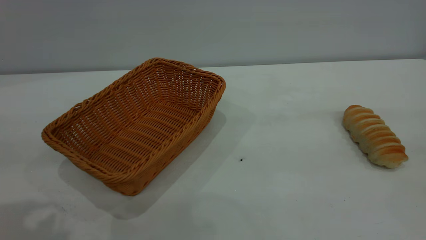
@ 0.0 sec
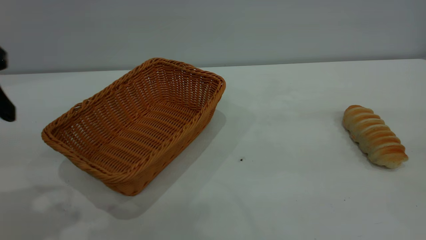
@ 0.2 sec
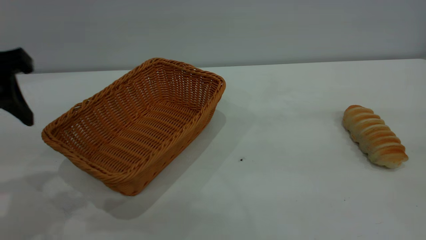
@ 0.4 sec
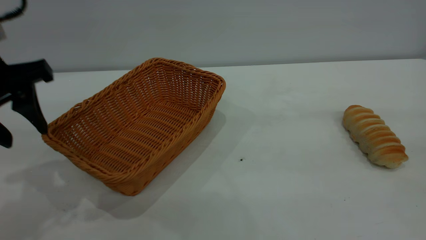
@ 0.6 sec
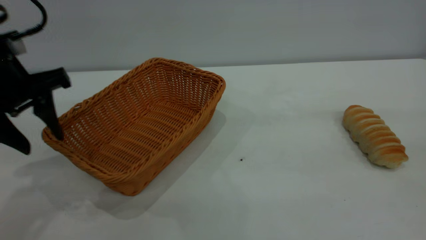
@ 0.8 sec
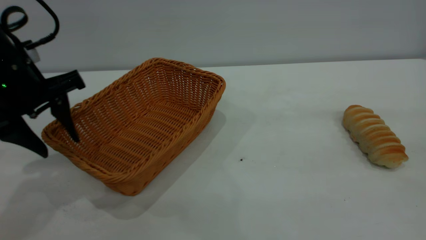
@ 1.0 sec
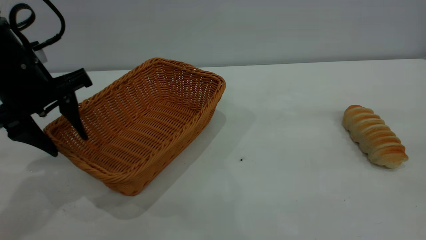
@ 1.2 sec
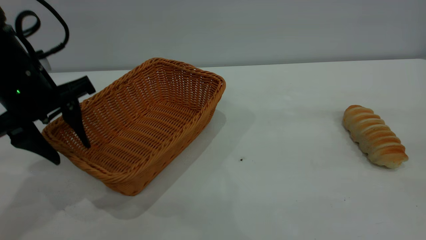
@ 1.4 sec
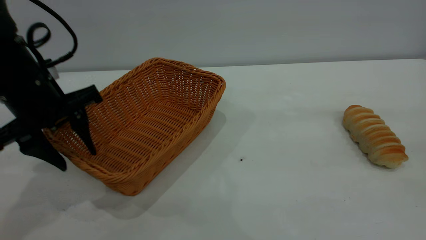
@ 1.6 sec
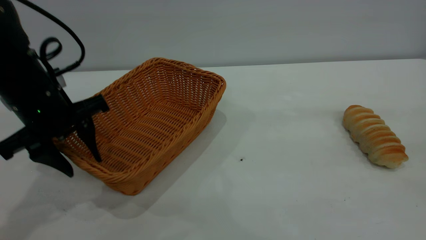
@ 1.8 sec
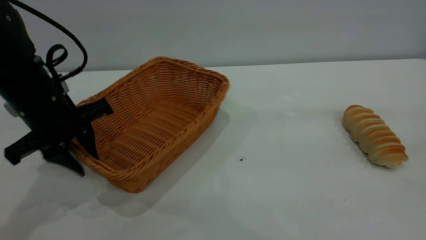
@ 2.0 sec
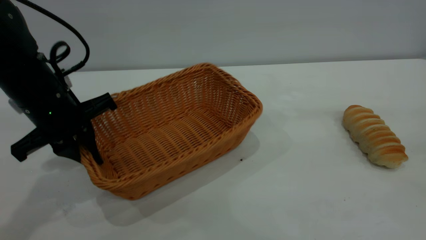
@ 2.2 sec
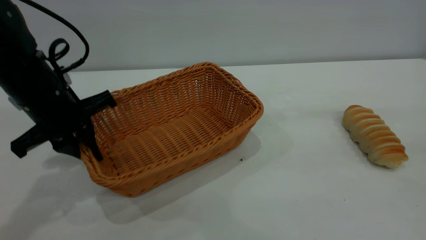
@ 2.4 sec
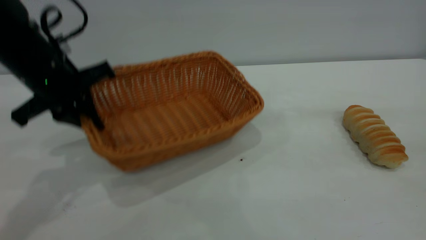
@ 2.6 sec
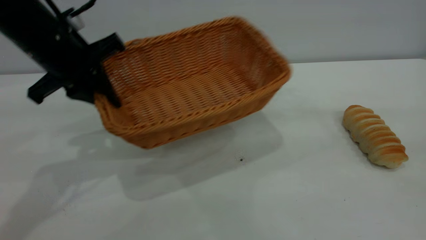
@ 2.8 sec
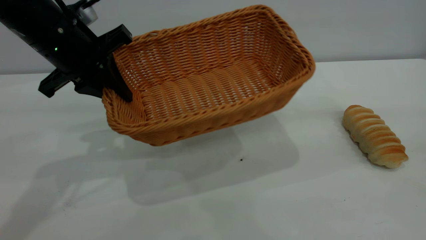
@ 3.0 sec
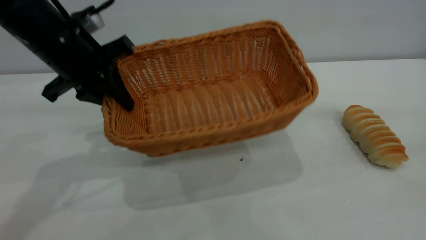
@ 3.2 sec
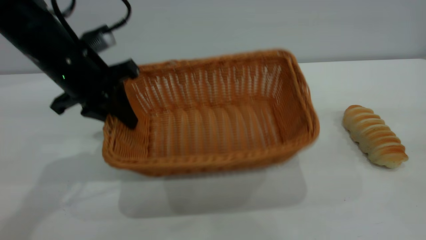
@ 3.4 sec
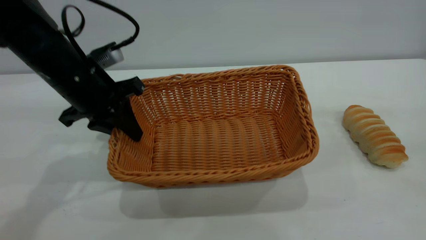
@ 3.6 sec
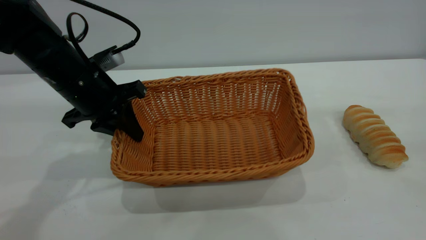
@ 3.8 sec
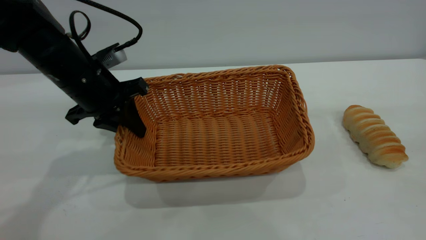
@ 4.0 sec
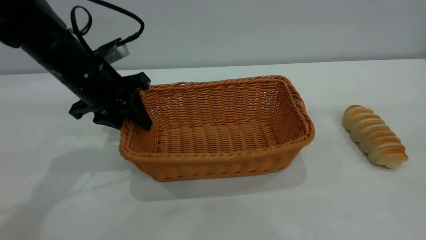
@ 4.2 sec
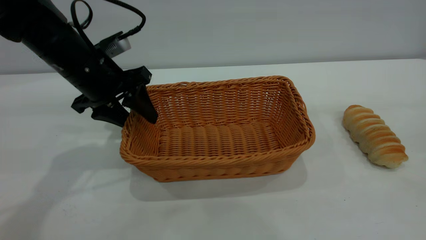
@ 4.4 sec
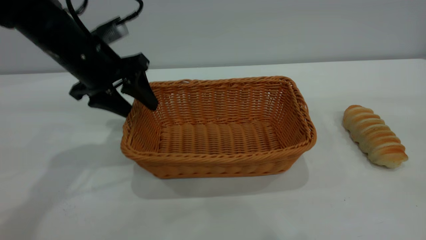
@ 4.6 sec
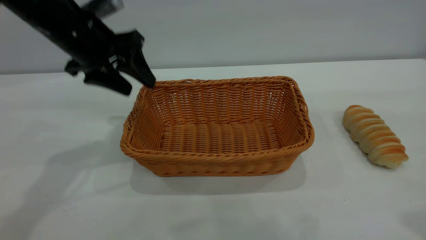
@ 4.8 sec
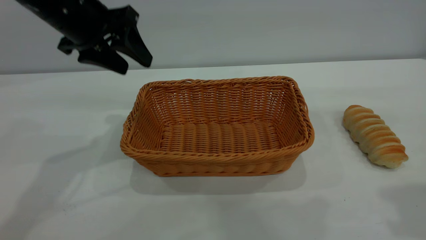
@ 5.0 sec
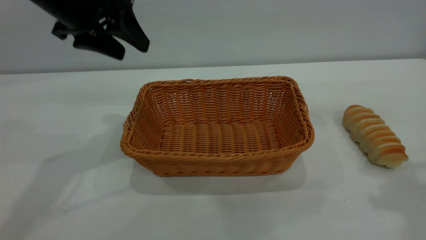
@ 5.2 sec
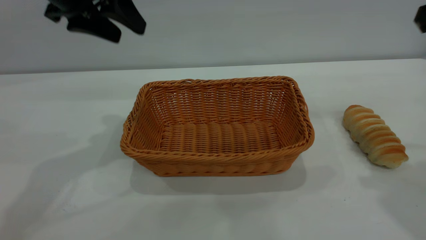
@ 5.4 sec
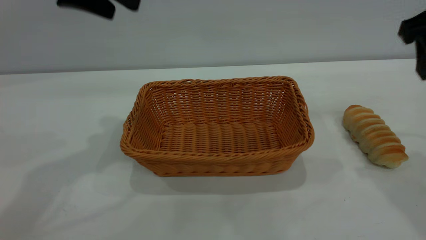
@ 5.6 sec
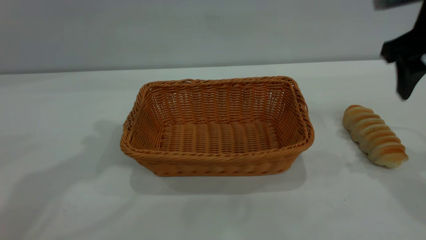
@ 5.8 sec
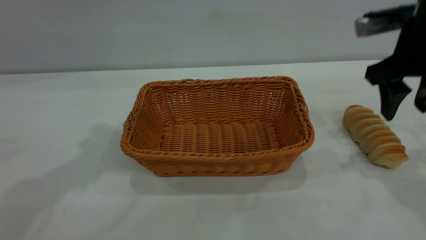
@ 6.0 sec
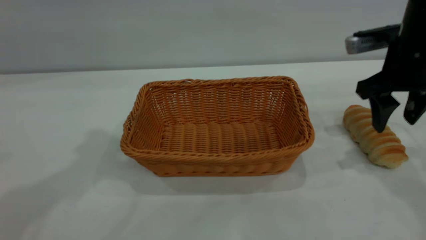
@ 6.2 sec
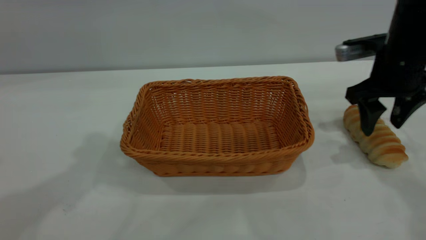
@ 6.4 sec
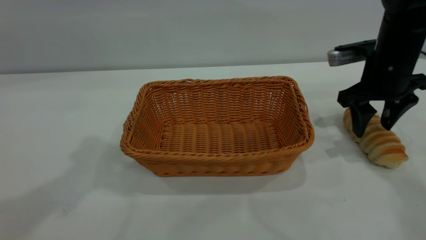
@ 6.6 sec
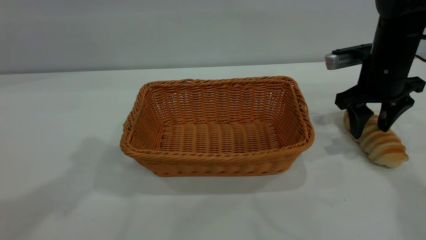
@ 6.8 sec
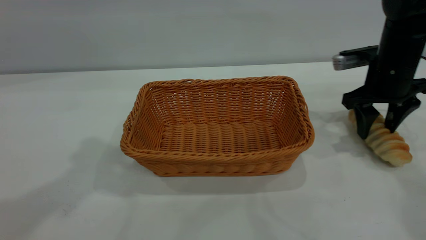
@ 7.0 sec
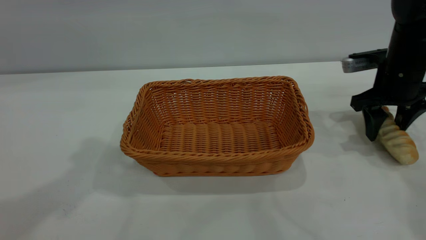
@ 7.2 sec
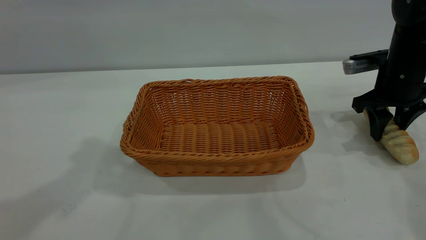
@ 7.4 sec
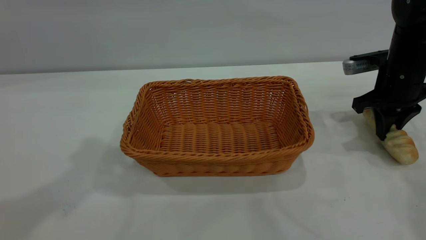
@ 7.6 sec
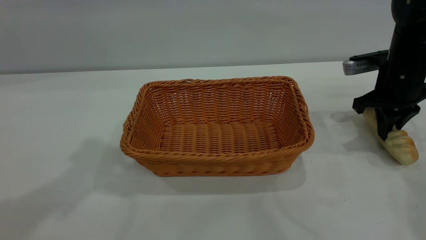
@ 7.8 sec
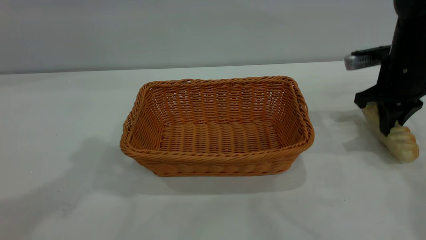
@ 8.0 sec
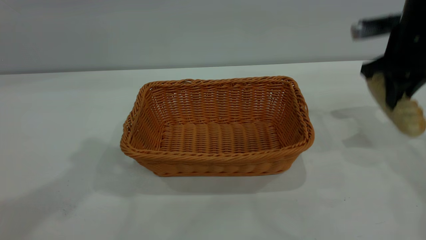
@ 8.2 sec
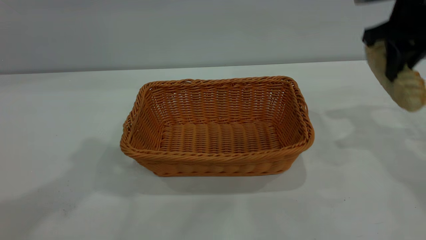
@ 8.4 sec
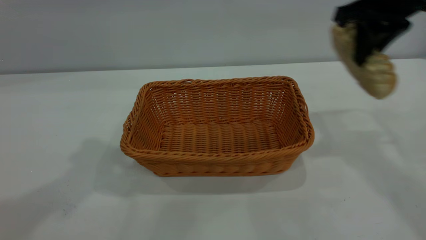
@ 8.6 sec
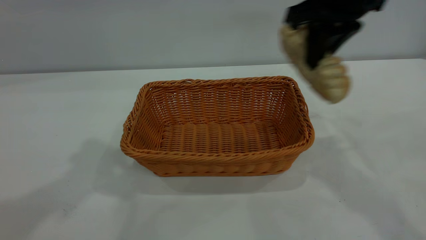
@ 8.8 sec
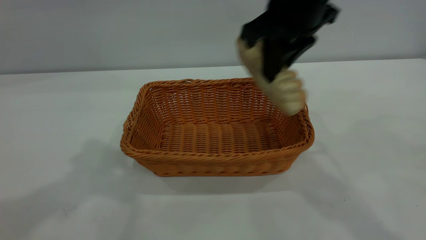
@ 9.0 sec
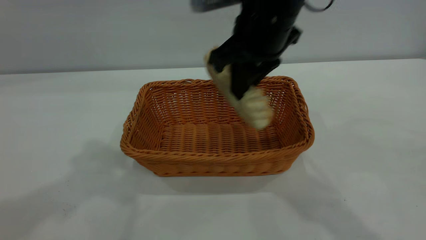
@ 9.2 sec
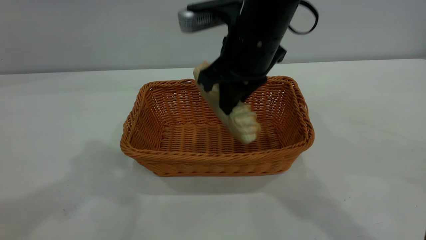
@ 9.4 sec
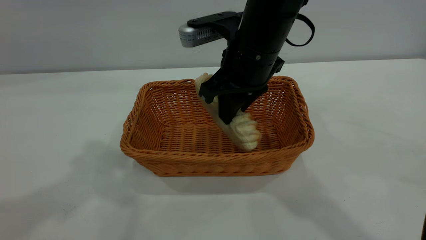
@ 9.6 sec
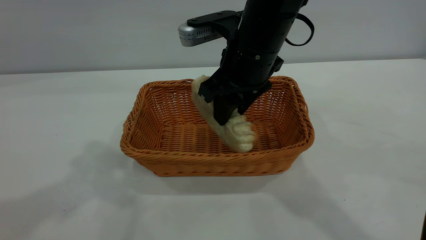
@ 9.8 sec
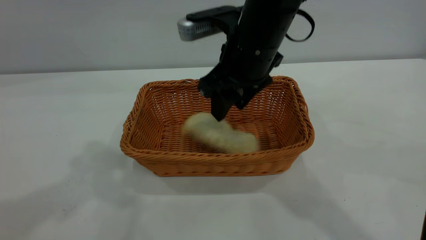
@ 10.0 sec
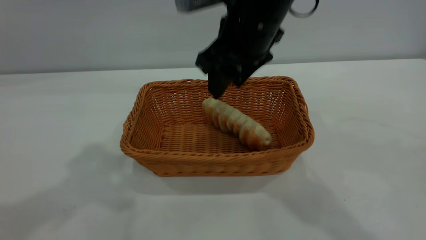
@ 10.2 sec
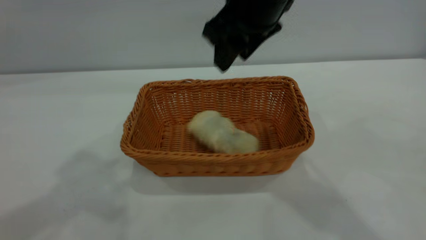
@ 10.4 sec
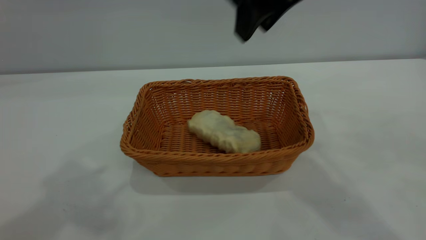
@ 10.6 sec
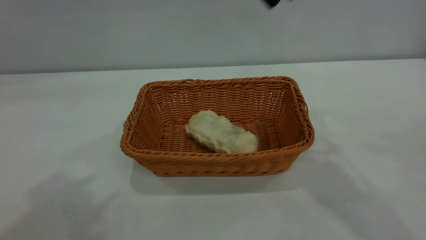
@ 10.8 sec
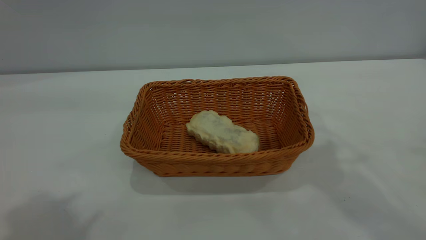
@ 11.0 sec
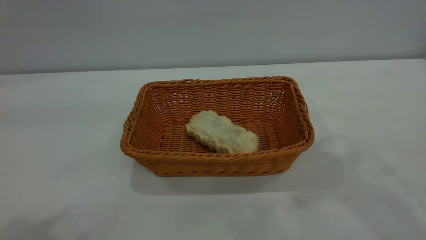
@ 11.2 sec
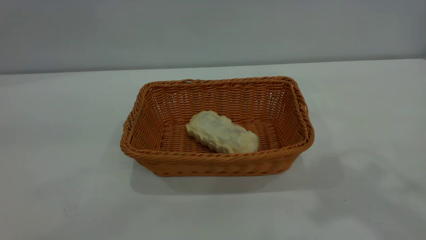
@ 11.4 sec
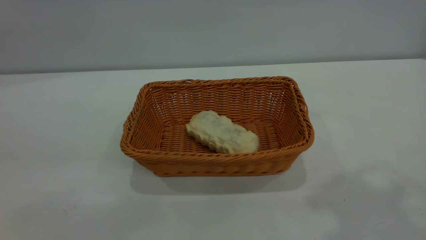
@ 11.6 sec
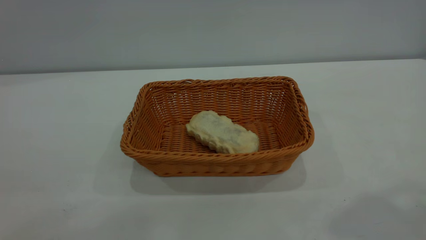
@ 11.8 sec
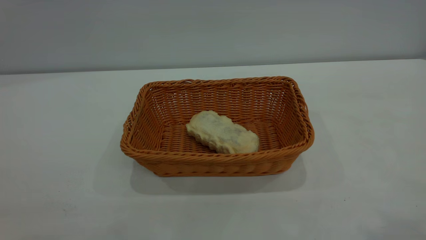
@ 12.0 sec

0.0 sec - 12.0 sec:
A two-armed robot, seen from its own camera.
Task of the whole recording: One hand grasps the yellow basket and places it in the middle of the table, while the other hand picks up the long bread and puts it into the yellow basket.
Step, 0.0 sec - 5.0 sec: Move the basket to the center of view.
Step, 8.6 sec - 10.4 sec: place the bread into the basket.
0.0 sec - 1.6 sec: The left gripper is displaced forward and downward by roughly 15 cm.
1.6 sec - 3.0 sec: The left gripper changes place by some 5 cm, and closes up.
3.0 sec - 4.4 sec: The left gripper shifts about 5 cm downward, and opens.
4.4 sec - 6.0 sec: The right gripper is displaced forward and downward by approximately 30 cm; the left gripper is displaced upward by some 25 cm.
6.0 sec - 7.6 sec: The right gripper travels downward and forward by approximately 10 cm, and closes up.
7.6 sec - 9.0 sec: The right gripper shifts roughly 25 cm to the left and upward.
9.0 sec - 10.4 sec: The right gripper goes downward and returns, some 5 cm each way, and opens.
10.4 sec - 12.0 sec: The right gripper shifts approximately 35 cm upward, backward and to the right; the left gripper is displaced backward by some 25 cm.

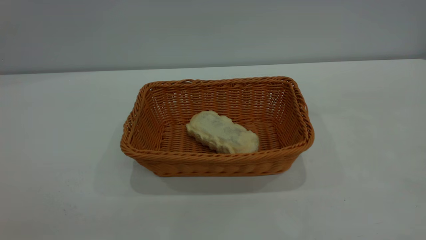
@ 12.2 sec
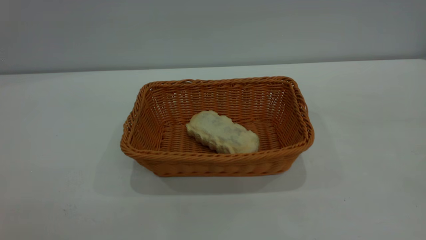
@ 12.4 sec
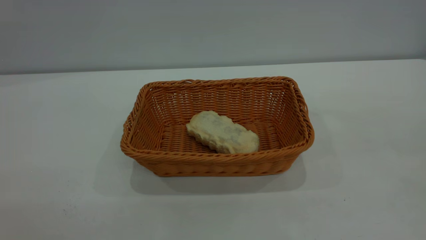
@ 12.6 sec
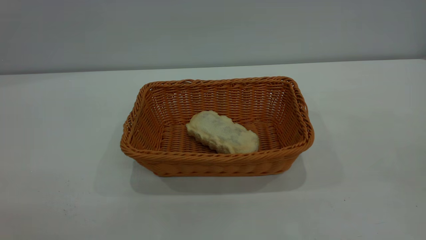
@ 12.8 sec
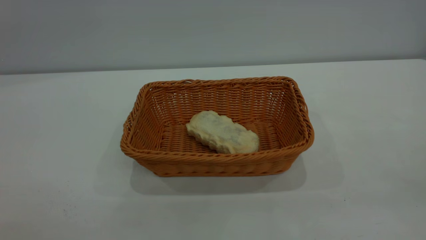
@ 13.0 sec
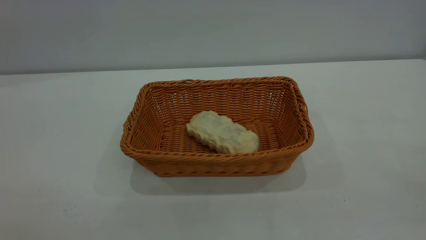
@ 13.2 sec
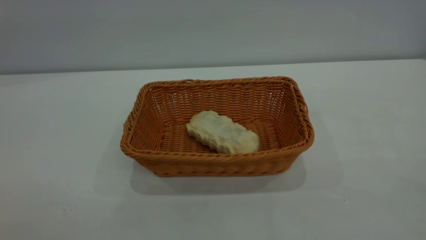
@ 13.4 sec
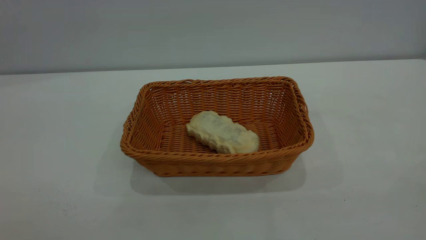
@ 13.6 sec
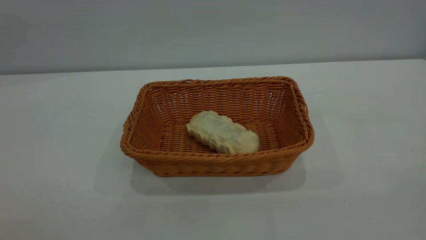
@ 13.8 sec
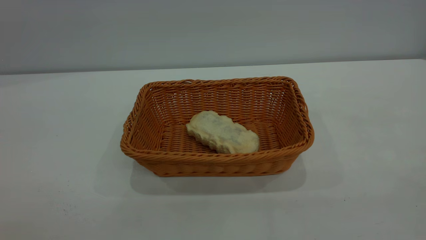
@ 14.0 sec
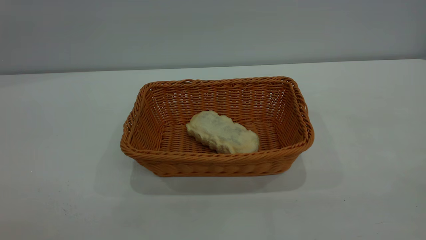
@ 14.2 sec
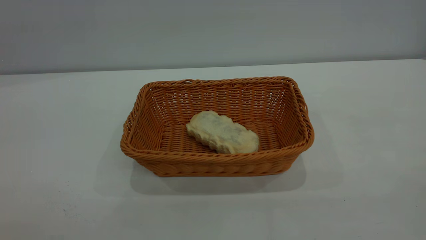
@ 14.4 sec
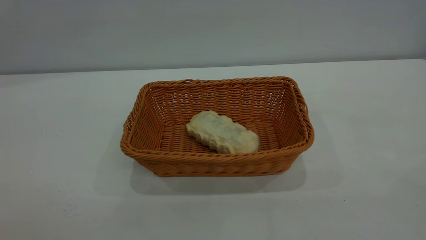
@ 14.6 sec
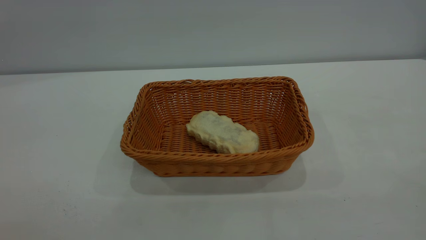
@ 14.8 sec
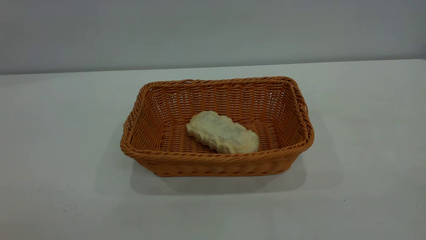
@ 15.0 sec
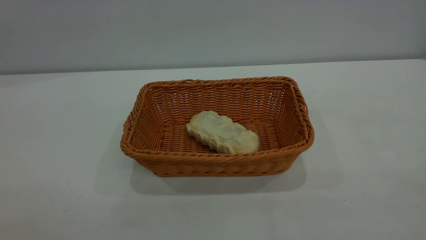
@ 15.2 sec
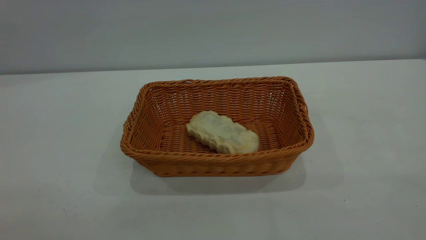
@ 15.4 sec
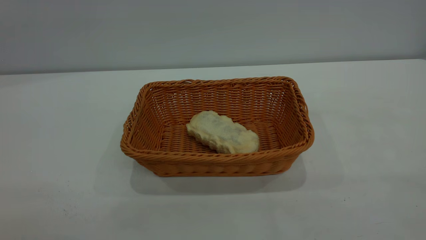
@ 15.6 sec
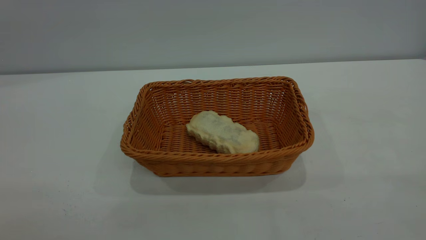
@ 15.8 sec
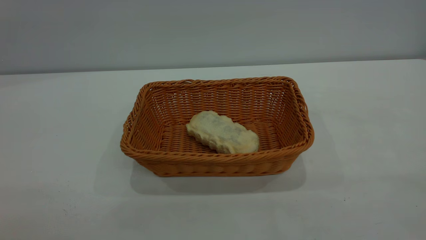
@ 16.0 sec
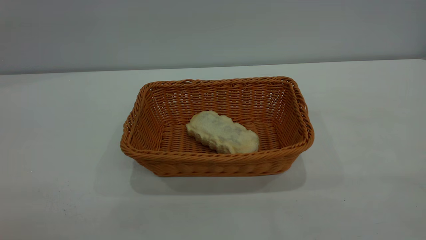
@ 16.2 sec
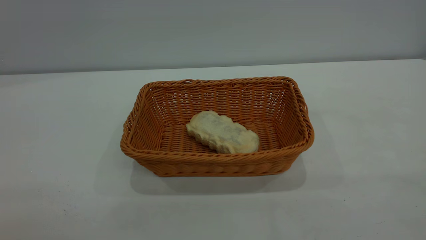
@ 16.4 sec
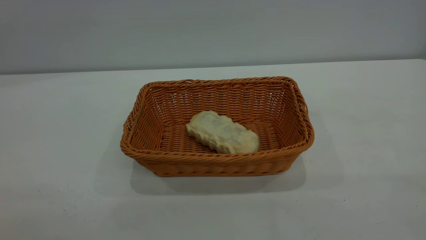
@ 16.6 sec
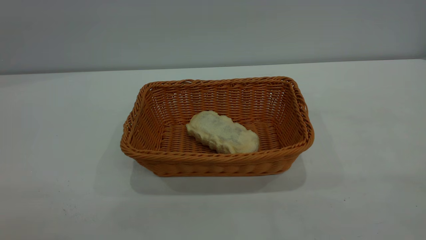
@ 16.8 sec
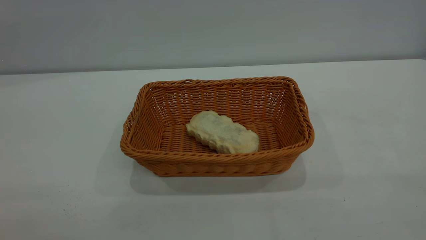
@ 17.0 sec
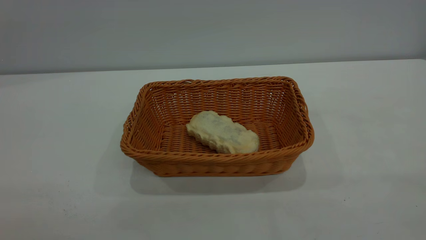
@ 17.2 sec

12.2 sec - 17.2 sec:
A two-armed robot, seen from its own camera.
Task of the whole recording: One hand grasps the yellow basket and places it in the middle of the table, while the other hand picks up the long bread and puts it into the yellow basket.
15.6 sec - 17.2 sec: The two grippers keep their place.
